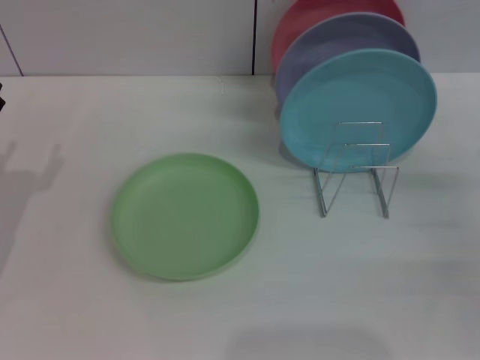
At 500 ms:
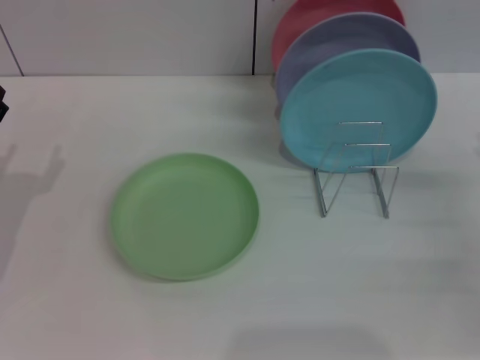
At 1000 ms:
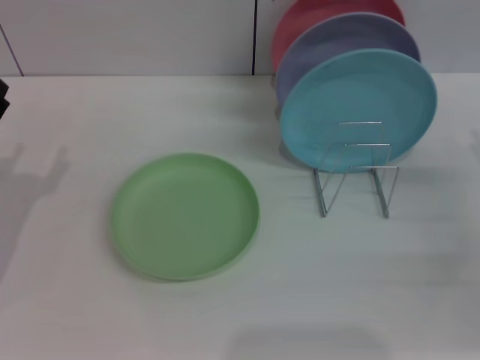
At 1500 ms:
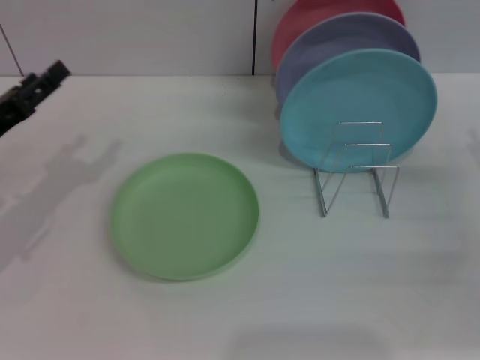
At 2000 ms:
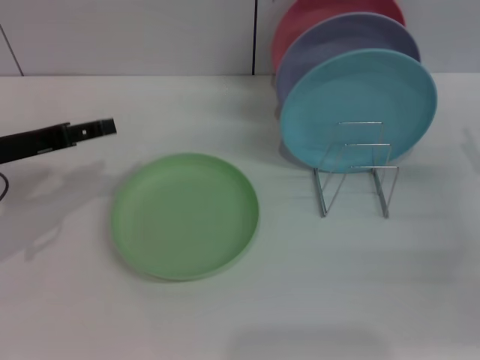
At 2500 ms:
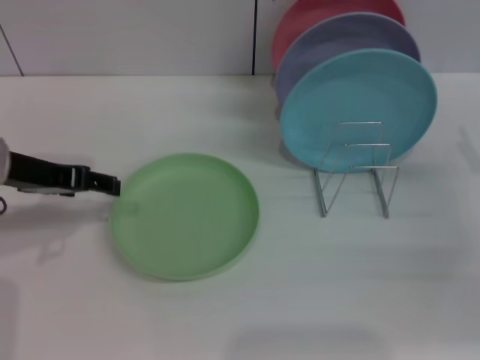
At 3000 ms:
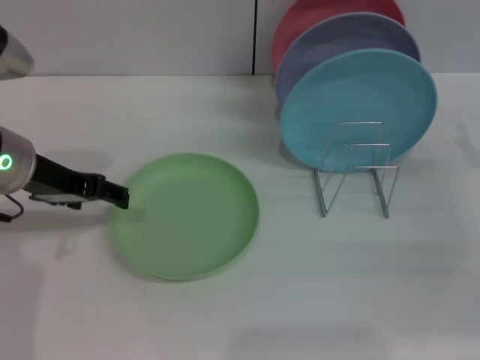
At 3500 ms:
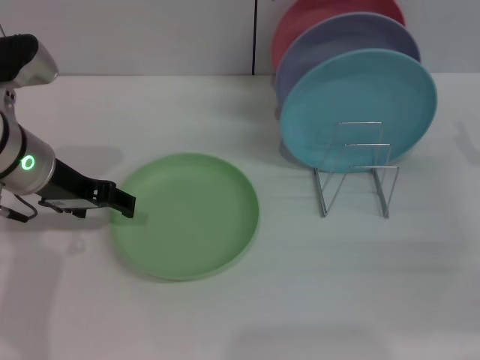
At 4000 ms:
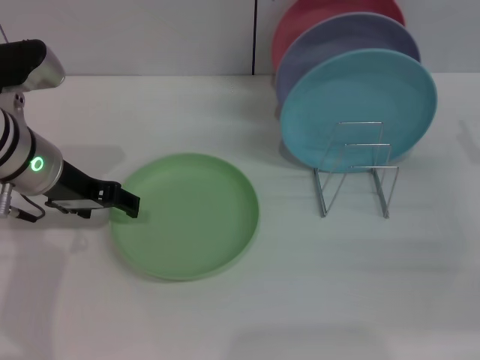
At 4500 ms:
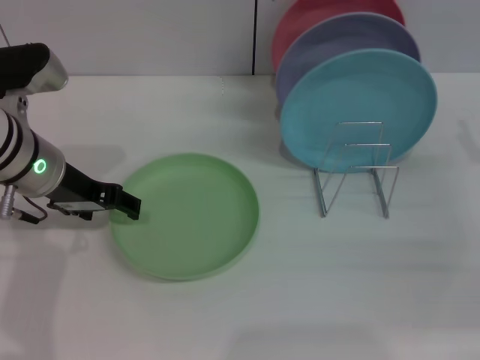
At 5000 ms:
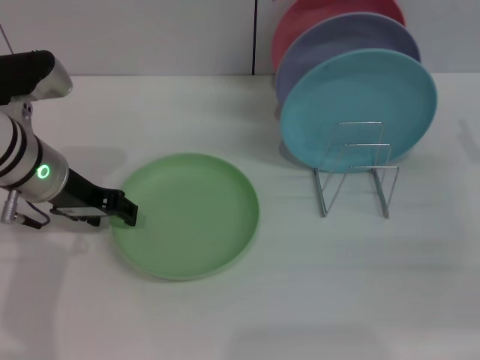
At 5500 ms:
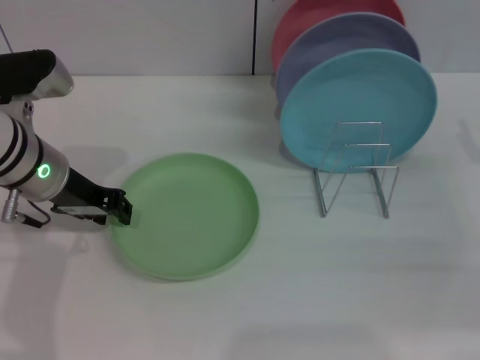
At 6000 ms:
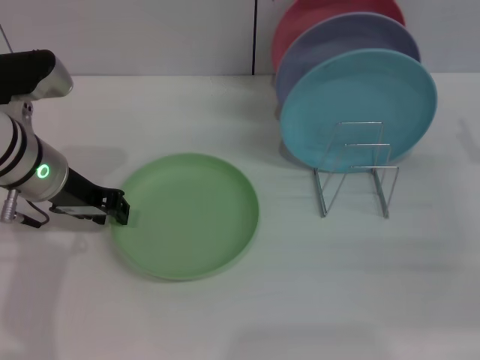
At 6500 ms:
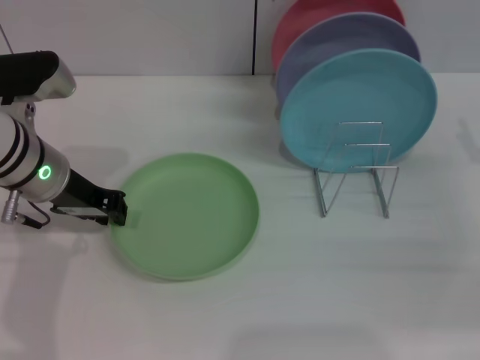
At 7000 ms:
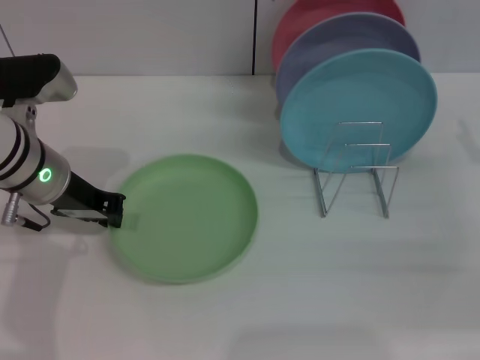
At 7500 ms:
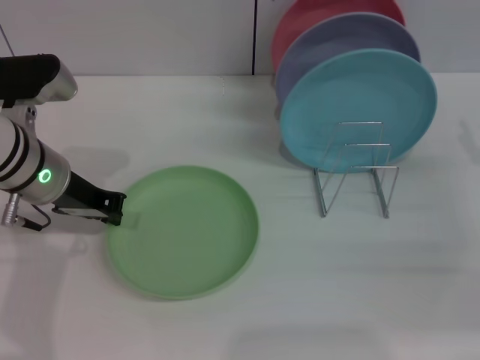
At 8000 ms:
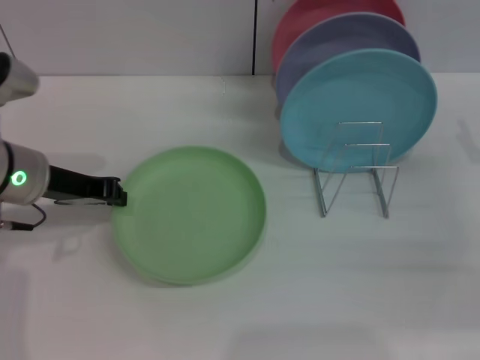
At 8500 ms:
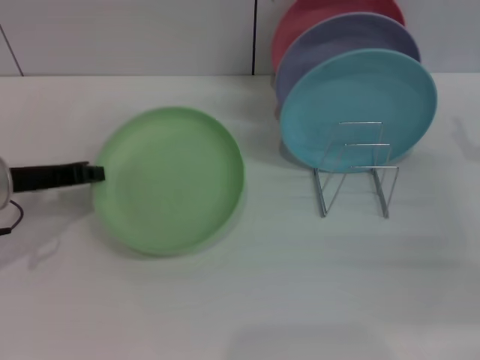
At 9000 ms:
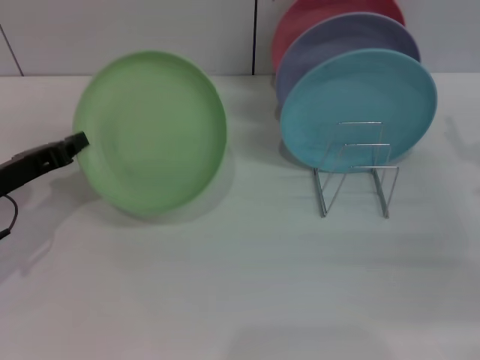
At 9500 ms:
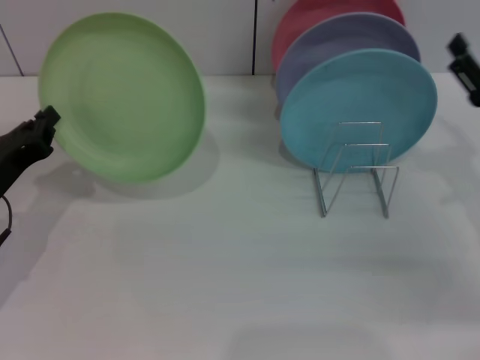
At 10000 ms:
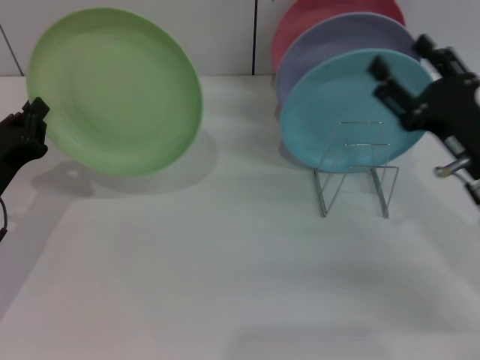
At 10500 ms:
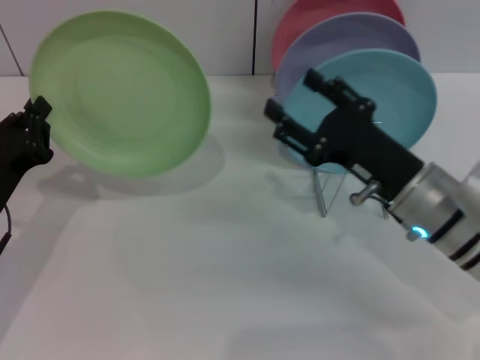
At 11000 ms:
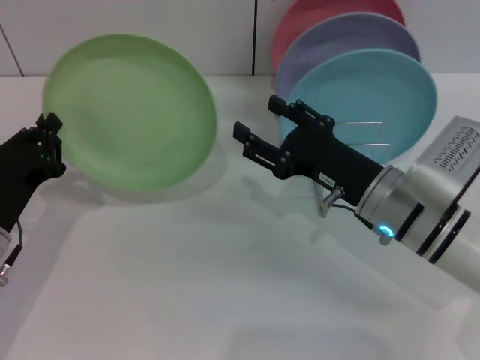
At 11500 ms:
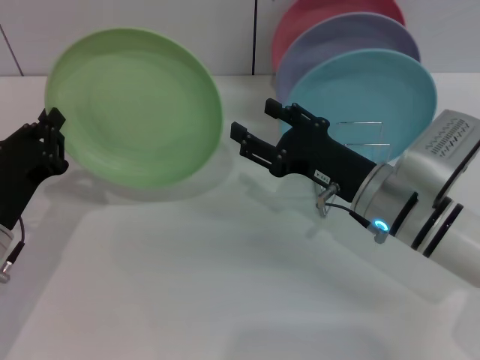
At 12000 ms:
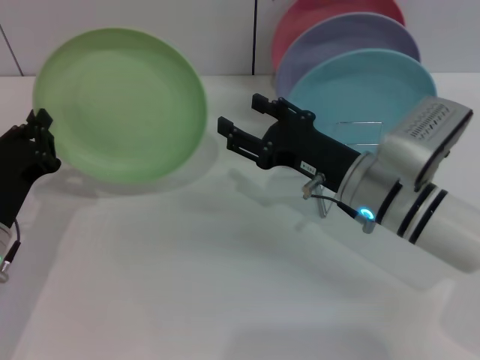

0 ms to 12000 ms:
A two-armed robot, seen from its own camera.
Task of the whole recording: Grip the plate with one hand, pass it to the other, then set it on the shelf.
Step, 0 ms to 9000 ms: Pick up the plate with the left gripper.
0 ms to 2000 ms: The left gripper heads upward, covering about 10 cm.
2000 ms to 4000 ms: The left gripper shifts some 10 cm to the right.
4000 ms to 6000 ms: The left gripper closes its fingers.
6000 ms to 8000 ms: The left gripper closes its fingers.
8000 ms to 10000 ms: The right gripper goes some 10 cm to the left; the left gripper is displaced downward, backward and to the left by some 10 cm.
10000 ms to 12000 ms: The right gripper shifts about 10 cm to the left.

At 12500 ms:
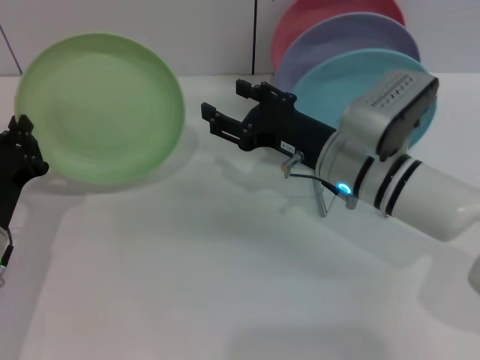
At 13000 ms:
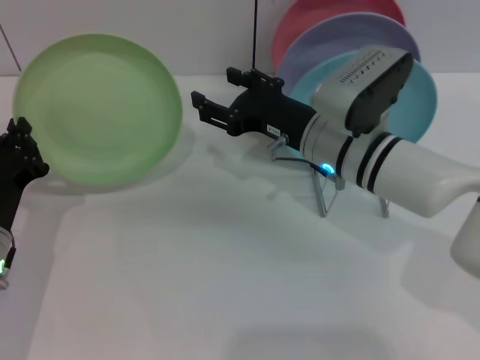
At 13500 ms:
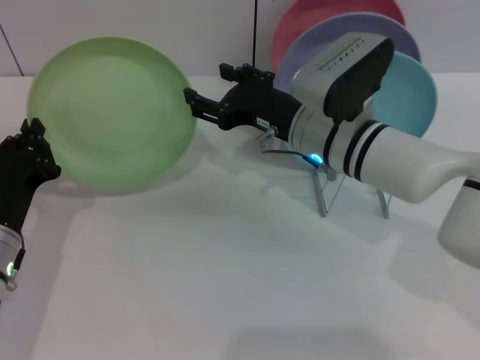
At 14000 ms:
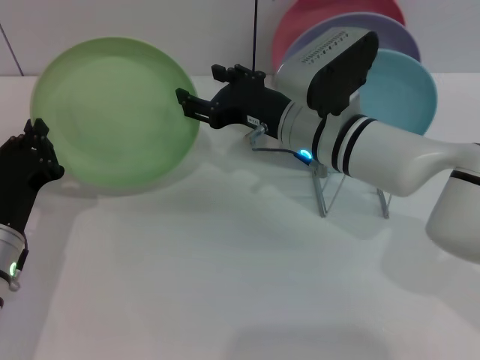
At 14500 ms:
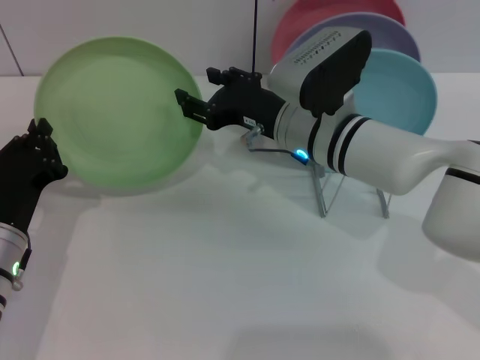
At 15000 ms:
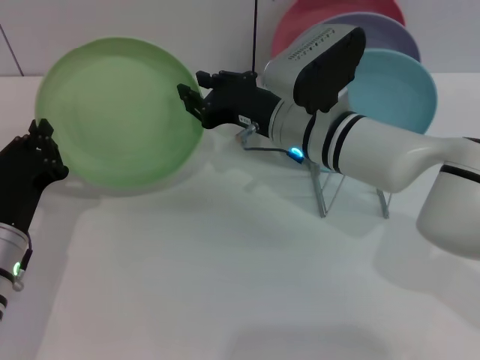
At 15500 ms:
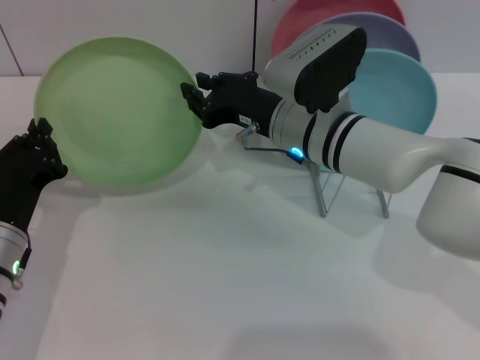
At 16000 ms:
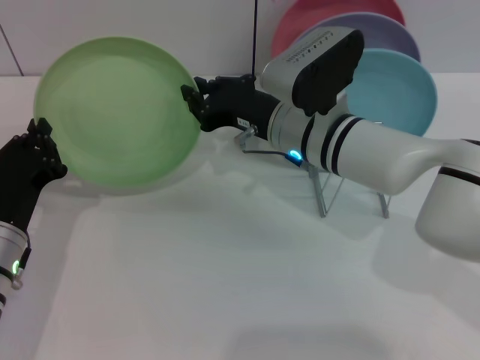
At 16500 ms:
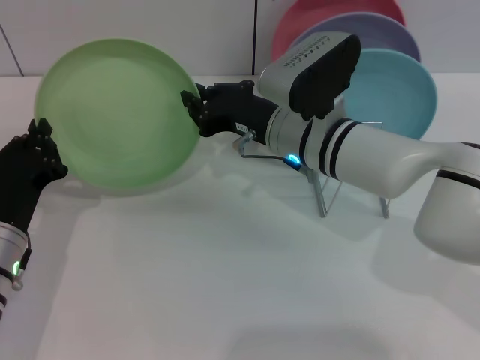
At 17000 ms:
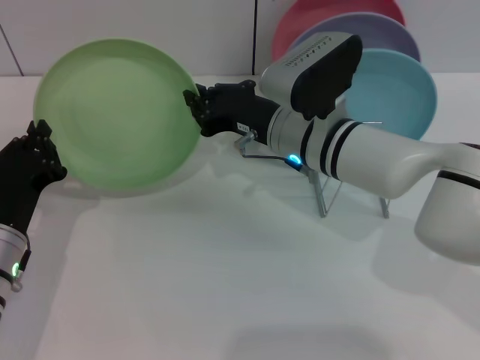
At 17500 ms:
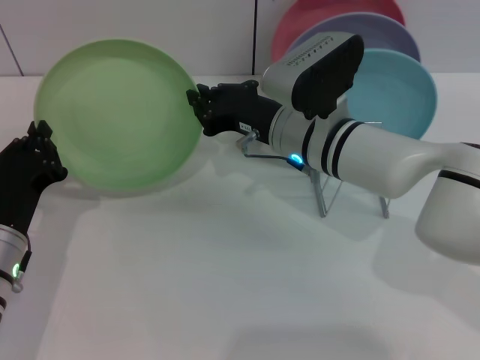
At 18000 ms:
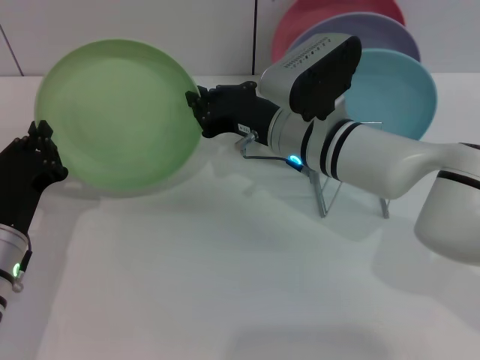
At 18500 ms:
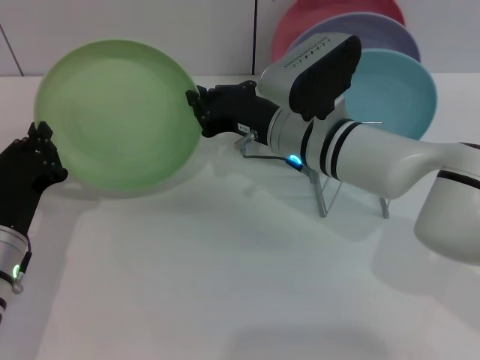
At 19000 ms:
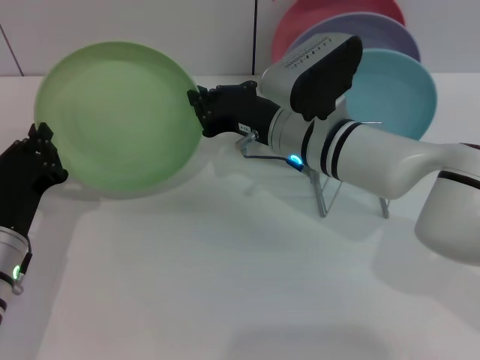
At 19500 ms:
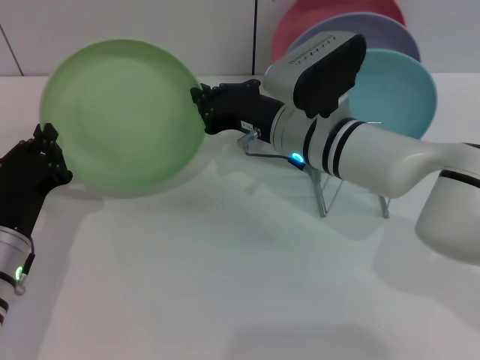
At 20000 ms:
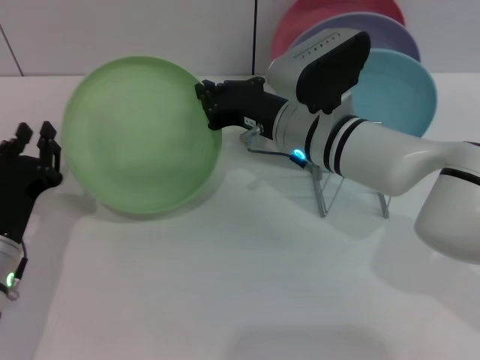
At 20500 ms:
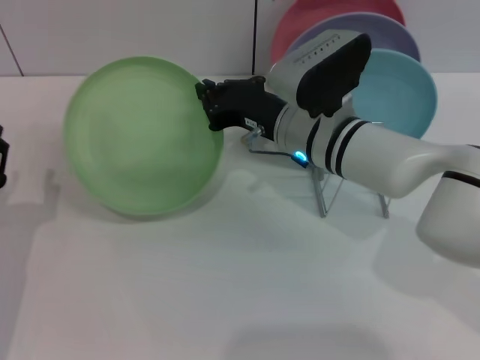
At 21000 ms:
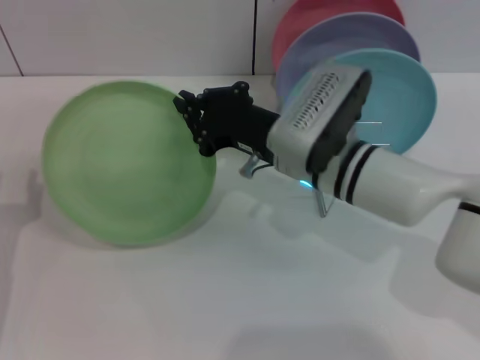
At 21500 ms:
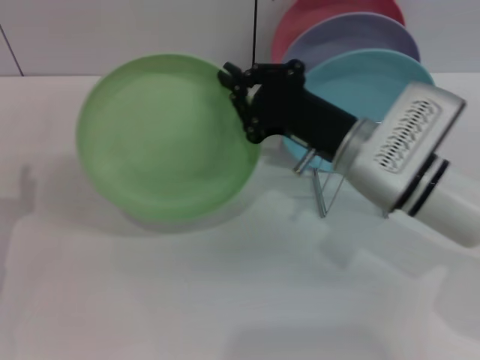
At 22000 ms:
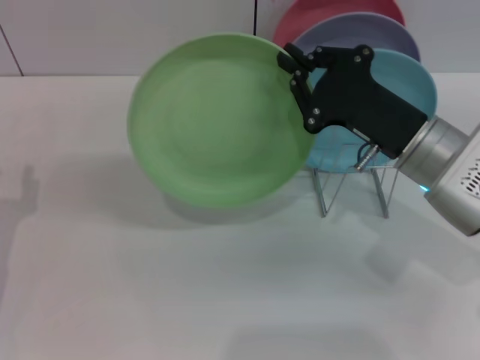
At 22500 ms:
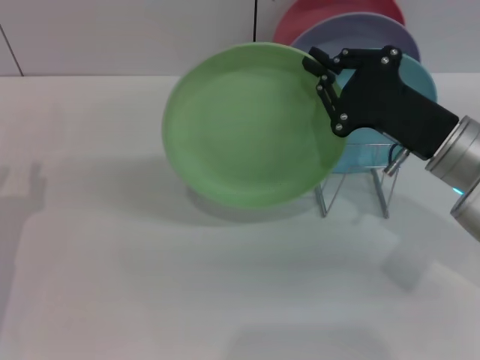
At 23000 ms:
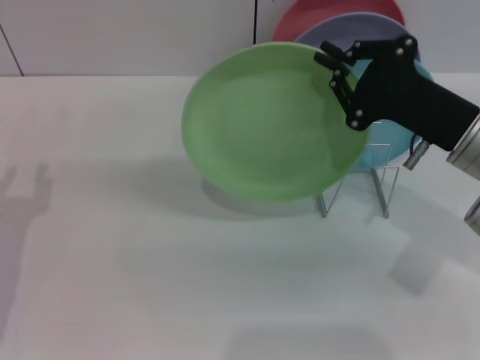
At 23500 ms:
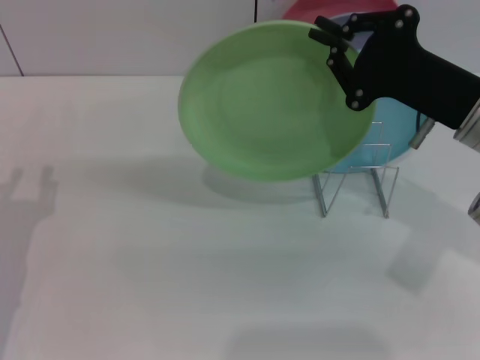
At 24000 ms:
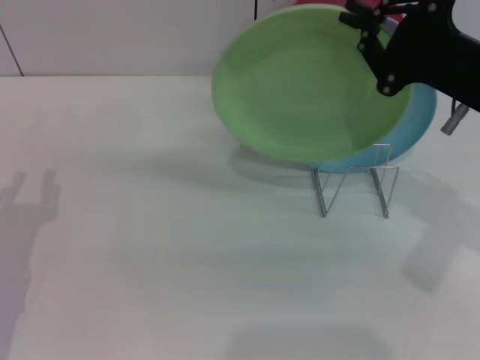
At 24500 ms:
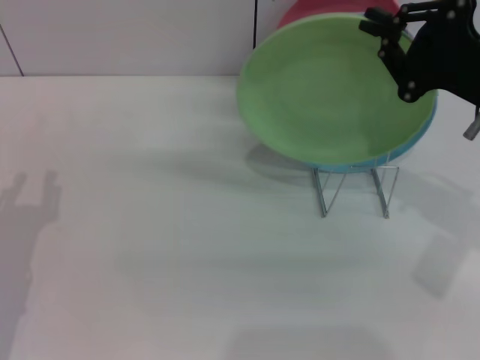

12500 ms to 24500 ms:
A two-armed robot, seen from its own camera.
Task of the whole recording: Grip the plate with one hand, pass it to the other, then set it on the shelf.
Step, 12500 ms to 21500 ms: Pass the plate from the left gripper to the right gripper.
12500 ms to 14500 ms: The right gripper shifts by roughly 5 cm.
14500 ms to 16500 ms: The right gripper closes up.
16500 ms to 18500 ms: Both grippers stay put.
18500 ms to 20500 ms: The left gripper opens.
20500 ms to 22500 ms: The right gripper travels to the right and backward by approximately 15 cm.
22500 ms to 24500 ms: The right gripper is displaced upward by roughly 5 cm.

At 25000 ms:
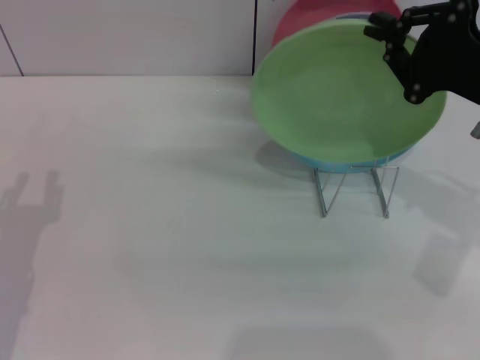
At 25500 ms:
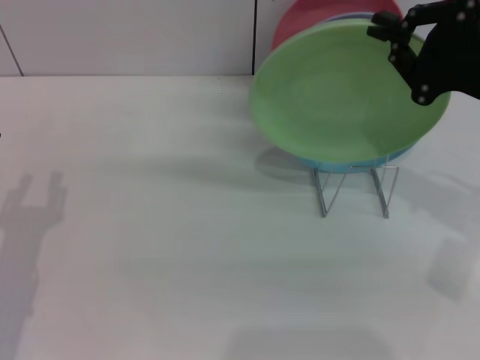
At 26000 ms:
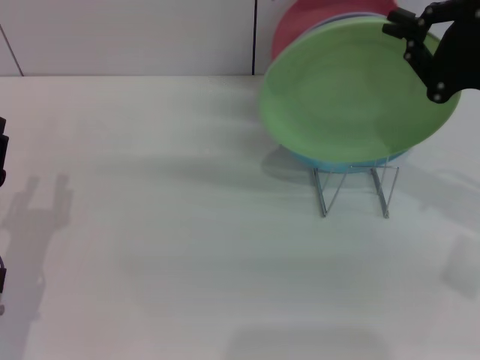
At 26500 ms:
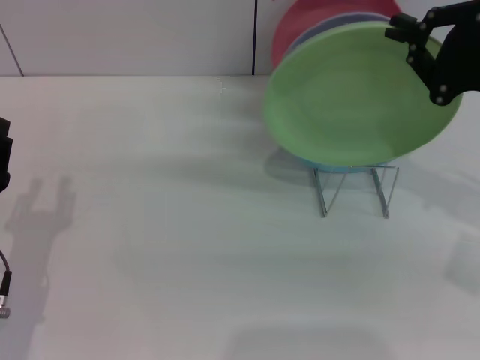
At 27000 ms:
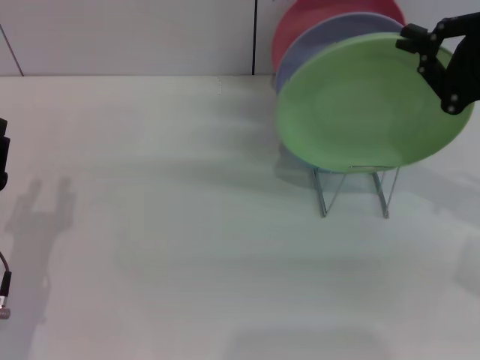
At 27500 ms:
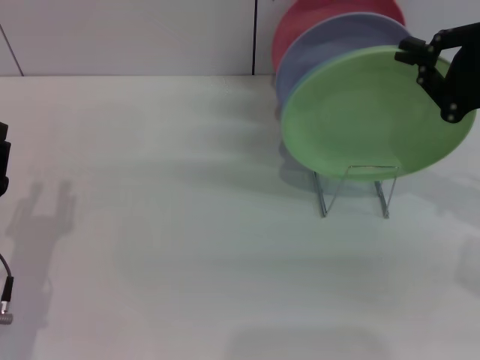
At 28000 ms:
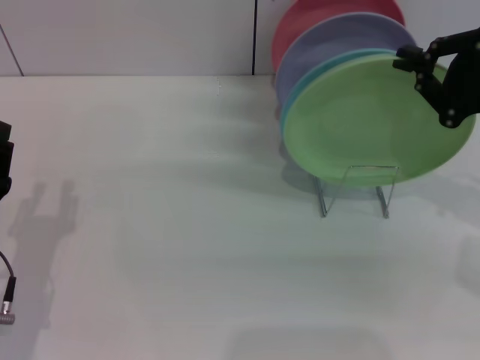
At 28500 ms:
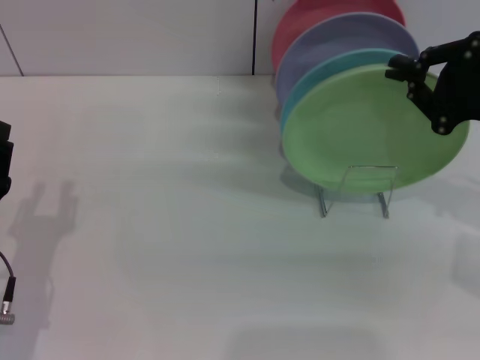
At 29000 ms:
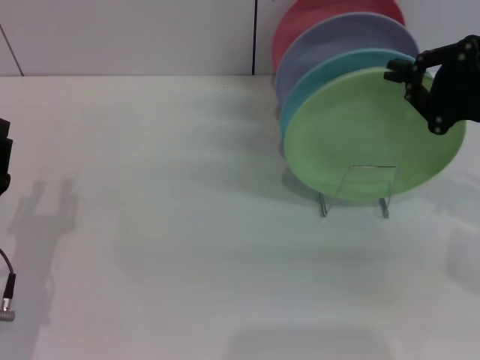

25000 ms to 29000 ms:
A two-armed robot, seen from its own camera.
Task of the whole recording: Grip the plate with one hand, pass it to the other, then set it on the shelf.
25000 ms to 29000 ms: The grippers stay close to where they were, moving slightly.
